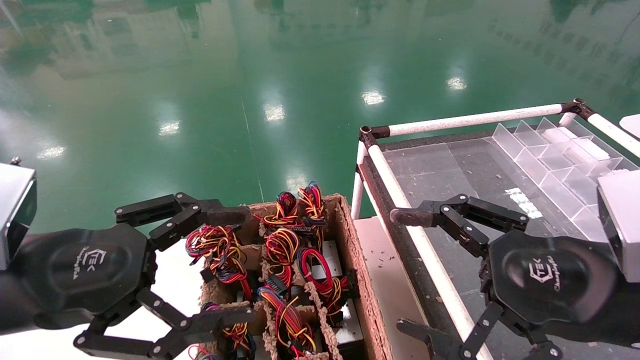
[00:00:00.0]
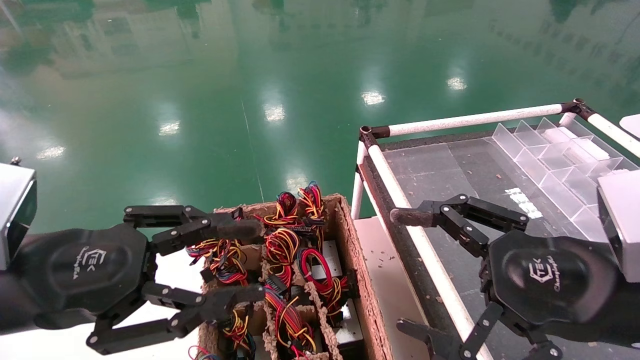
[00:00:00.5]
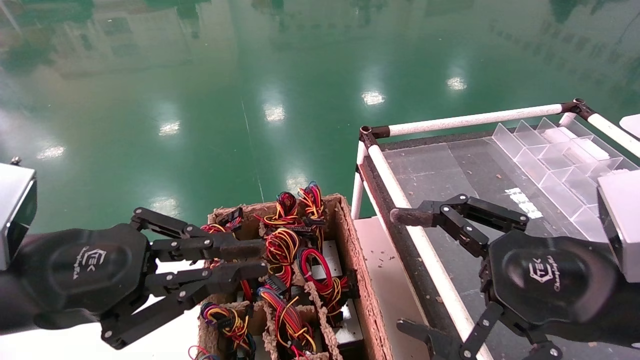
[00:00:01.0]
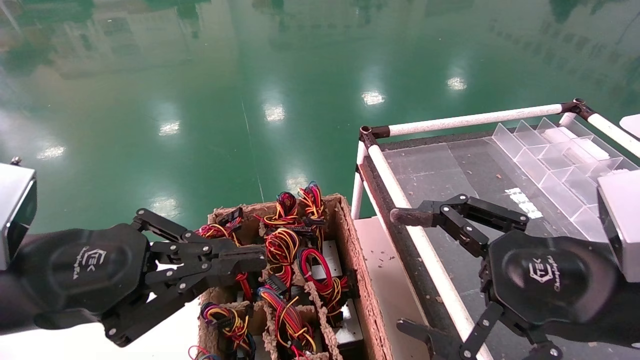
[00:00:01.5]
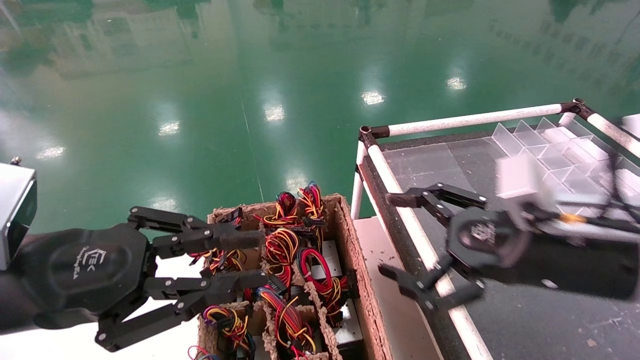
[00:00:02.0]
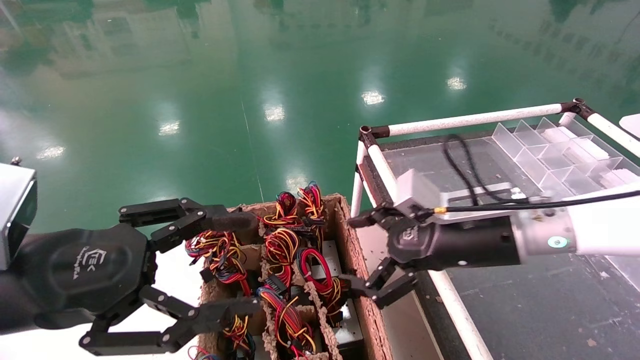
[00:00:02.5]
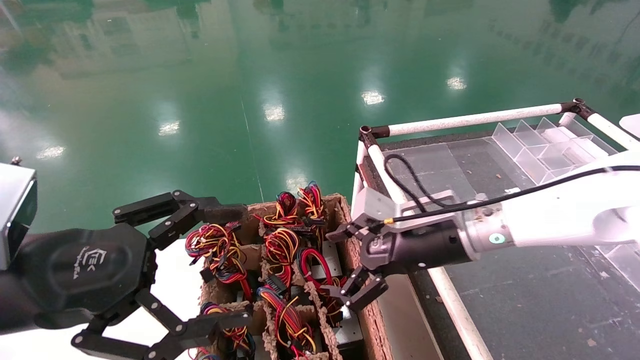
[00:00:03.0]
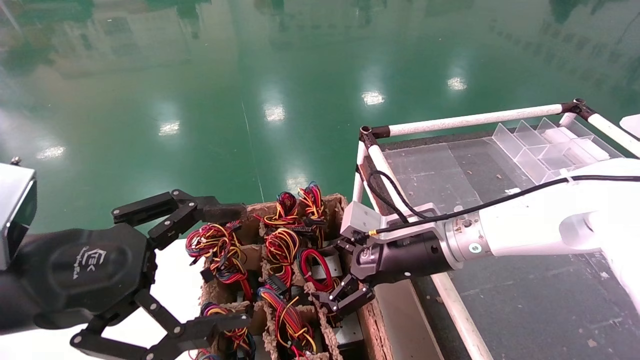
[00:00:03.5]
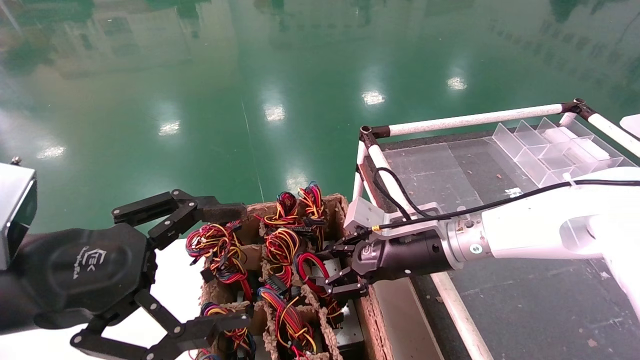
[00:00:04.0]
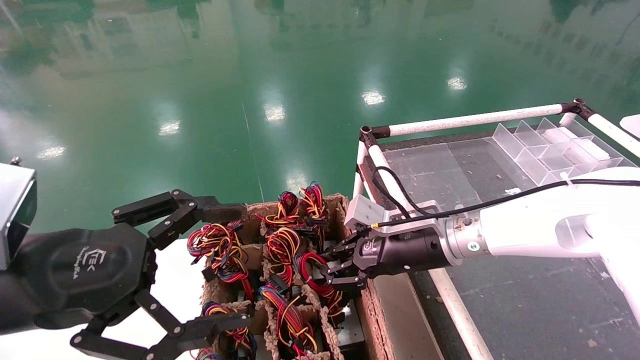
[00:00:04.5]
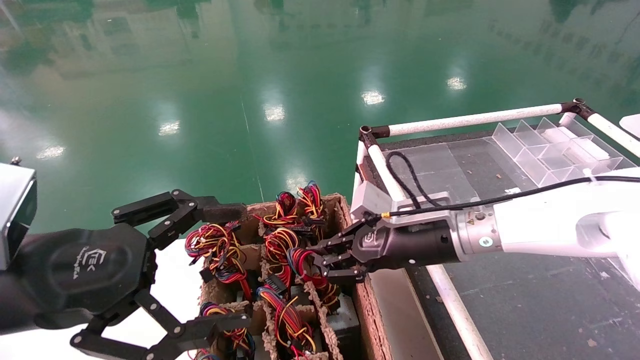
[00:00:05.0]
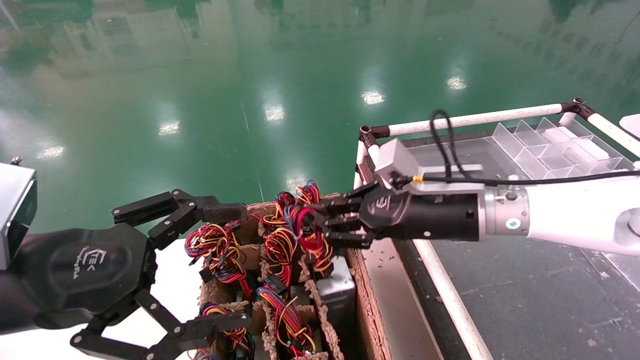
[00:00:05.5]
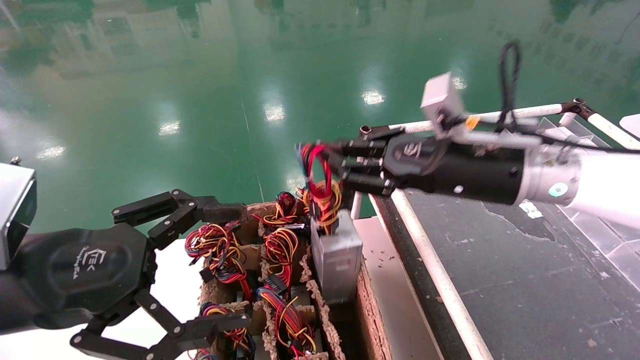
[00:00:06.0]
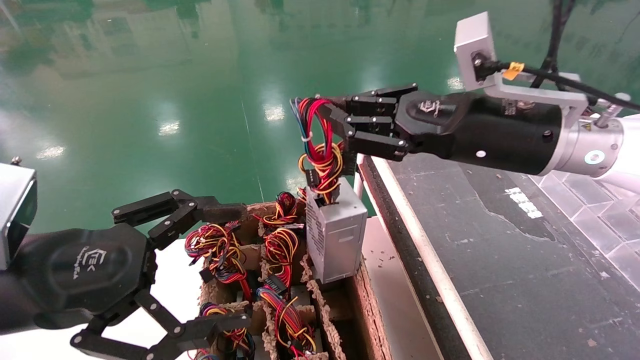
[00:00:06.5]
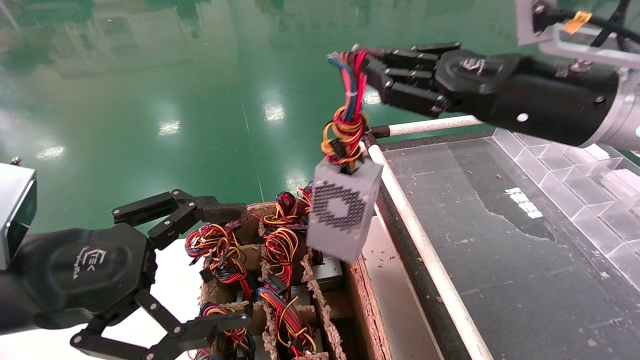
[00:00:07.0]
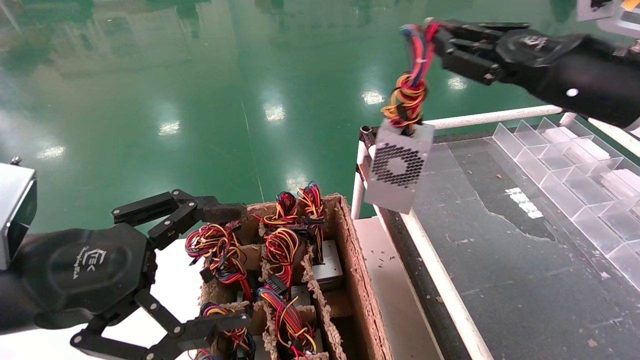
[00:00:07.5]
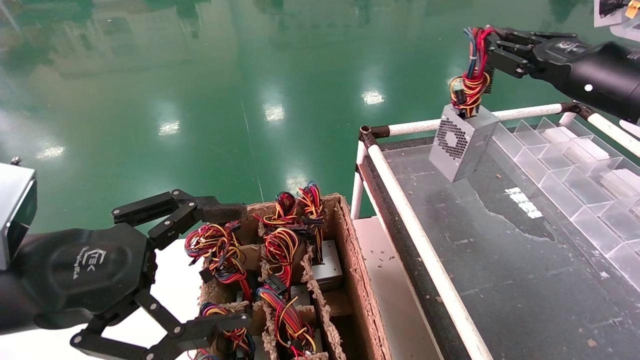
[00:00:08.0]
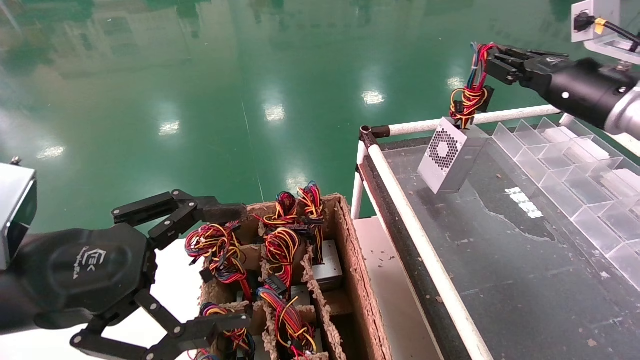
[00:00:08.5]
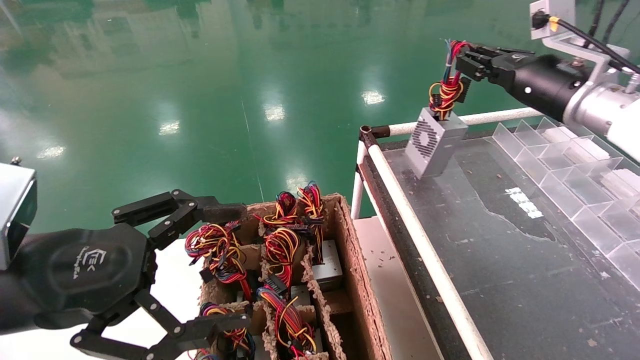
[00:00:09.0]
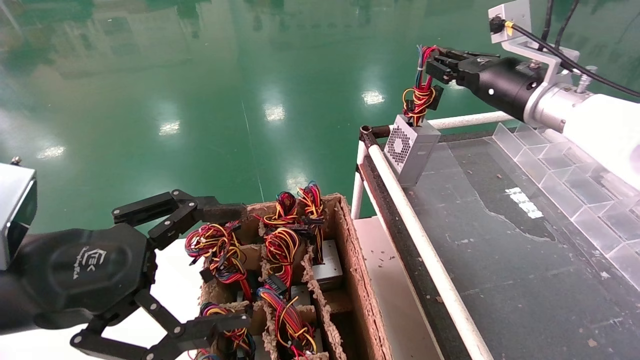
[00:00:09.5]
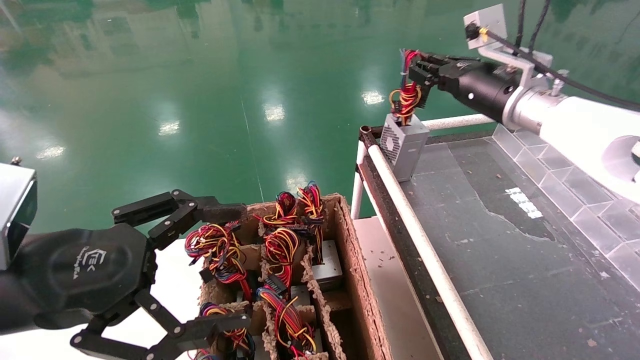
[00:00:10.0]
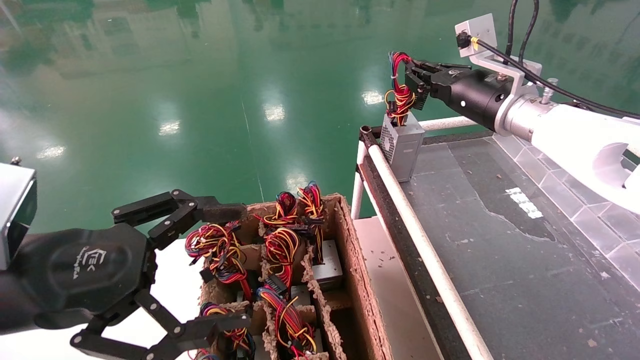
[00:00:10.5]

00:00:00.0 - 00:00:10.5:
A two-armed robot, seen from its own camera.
Step, 00:00:01.5 - 00:00:04.5: Grab and lift the power supply from the large box.
00:00:00.0 - 00:00:02.0: The right gripper moves forward, about 10 cm. The left gripper closes up.
00:00:02.0 - 00:00:04.0: The left gripper opens its fingers, while the right gripper shifts approximately 15 cm forward, to the left and downward, and closes its fingers.
00:00:04.0 - 00:00:06.5: The right gripper shifts approximately 15 cm upward and backward, and closes its fingers.
00:00:06.5 - 00:00:08.5: The right gripper heads to the right and forward, covering about 15 cm.
00:00:08.5 - 00:00:10.5: The right gripper moves to the left, about 10 cm.

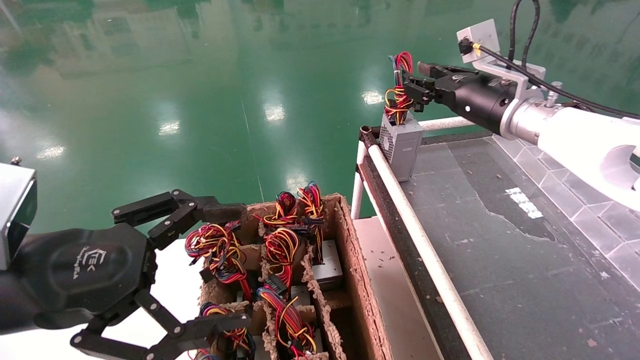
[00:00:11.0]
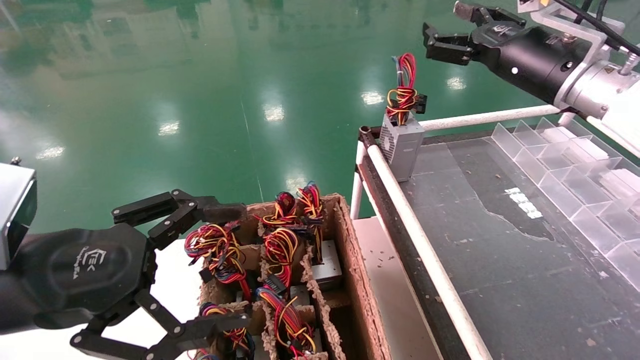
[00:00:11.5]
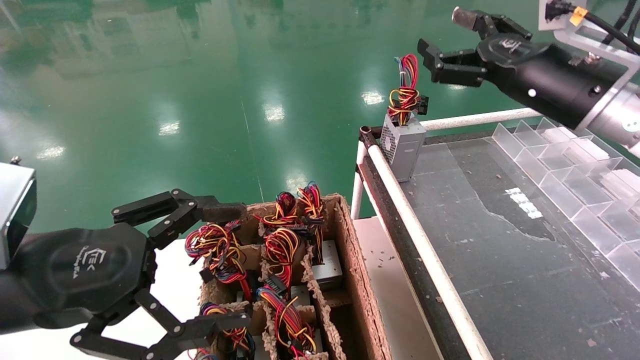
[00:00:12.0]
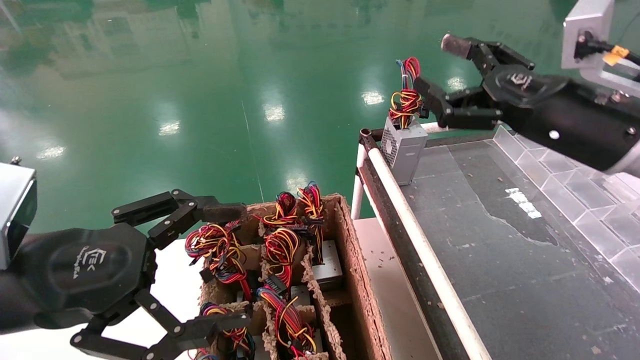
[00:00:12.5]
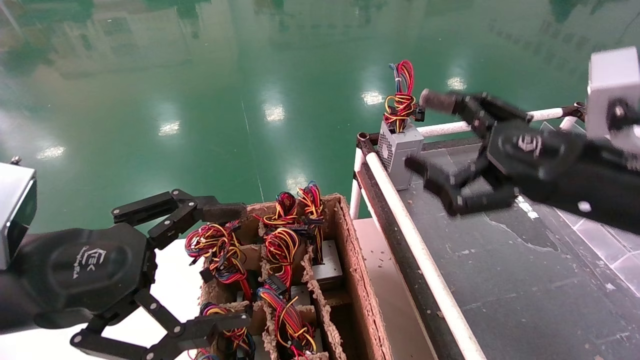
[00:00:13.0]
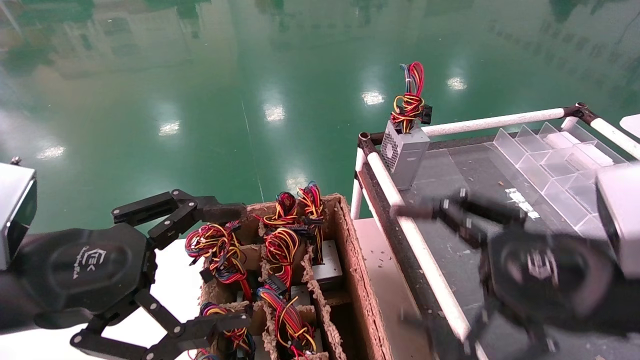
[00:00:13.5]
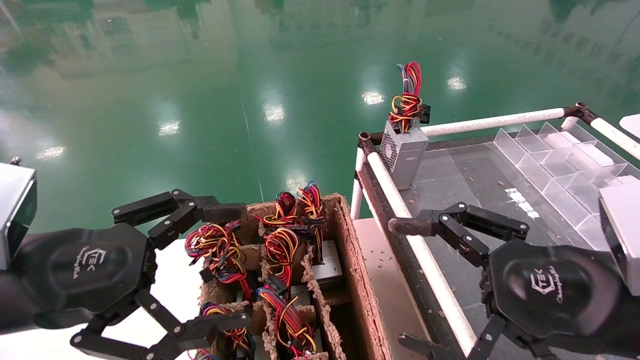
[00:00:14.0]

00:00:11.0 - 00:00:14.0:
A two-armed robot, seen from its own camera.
00:00:11.0 - 00:00:12.5: The right gripper moves backward, approximately 15 cm, and opens.
00:00:12.5 - 00:00:14.0: The right gripper goes some 15 cm backward and downward.
